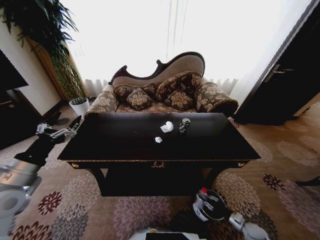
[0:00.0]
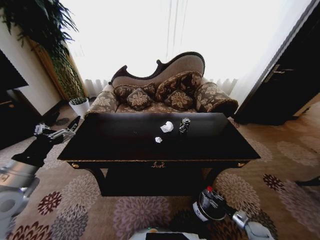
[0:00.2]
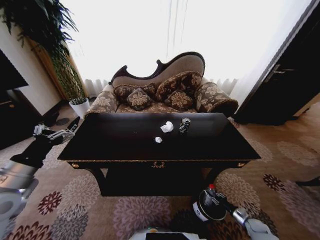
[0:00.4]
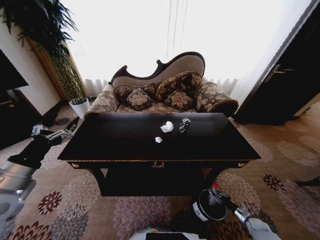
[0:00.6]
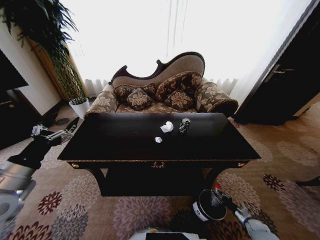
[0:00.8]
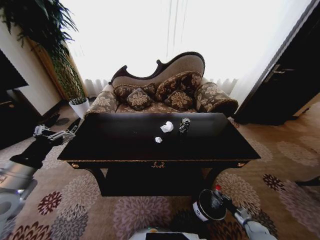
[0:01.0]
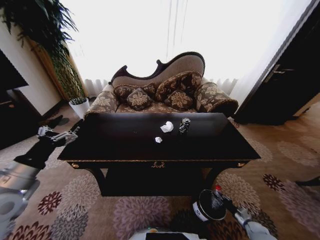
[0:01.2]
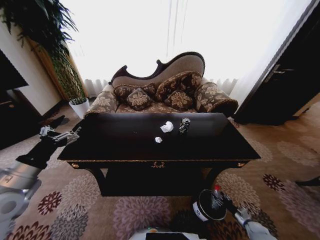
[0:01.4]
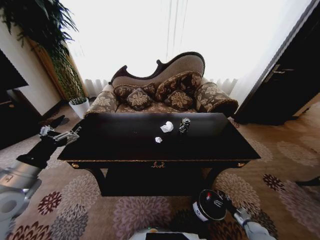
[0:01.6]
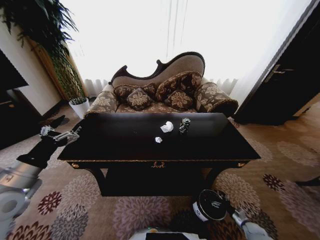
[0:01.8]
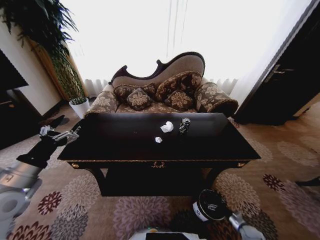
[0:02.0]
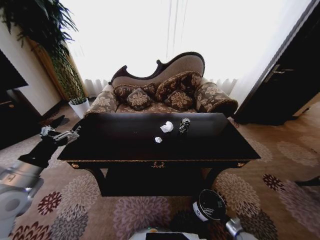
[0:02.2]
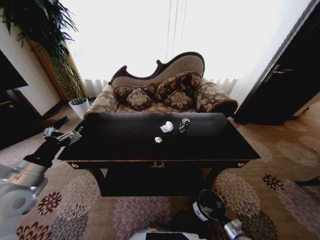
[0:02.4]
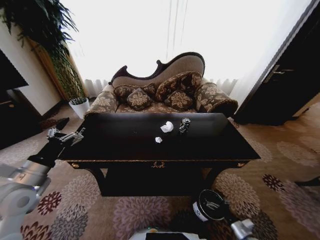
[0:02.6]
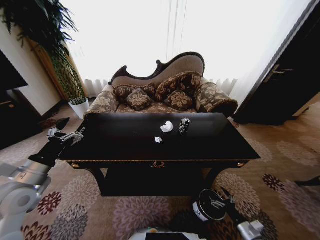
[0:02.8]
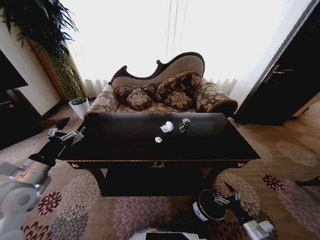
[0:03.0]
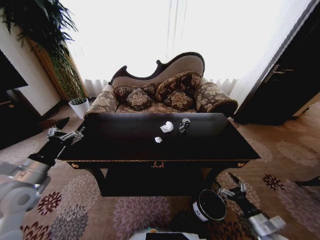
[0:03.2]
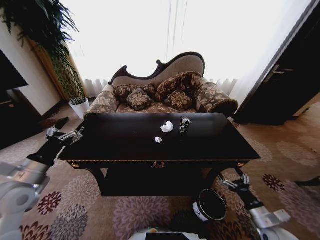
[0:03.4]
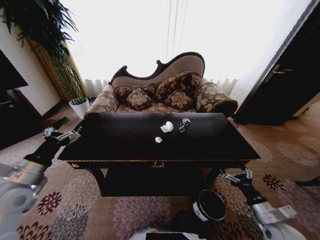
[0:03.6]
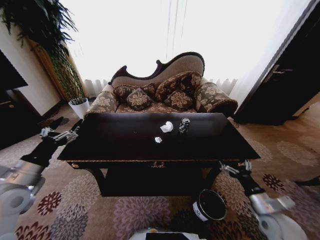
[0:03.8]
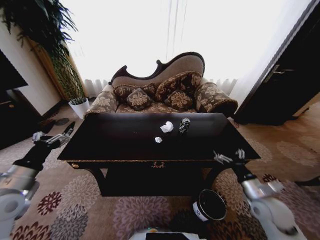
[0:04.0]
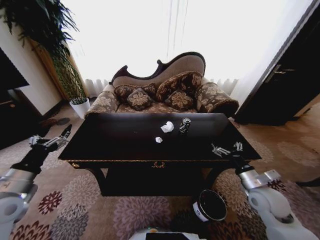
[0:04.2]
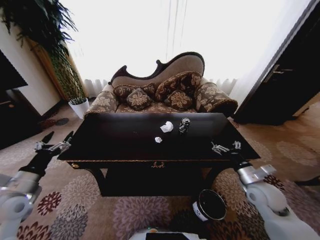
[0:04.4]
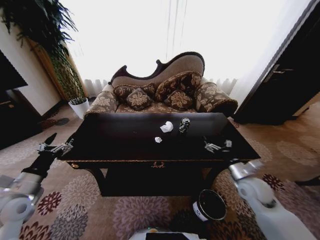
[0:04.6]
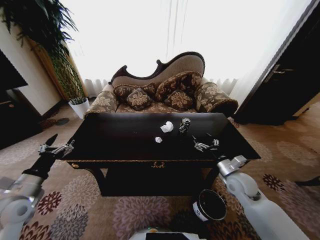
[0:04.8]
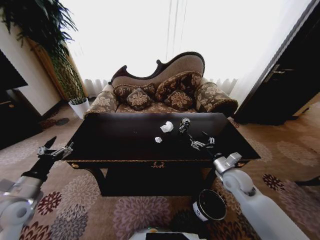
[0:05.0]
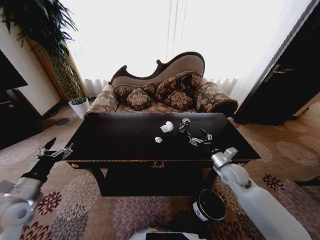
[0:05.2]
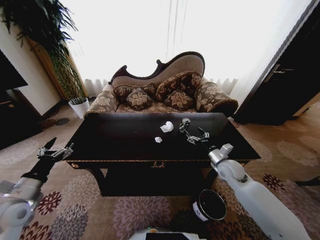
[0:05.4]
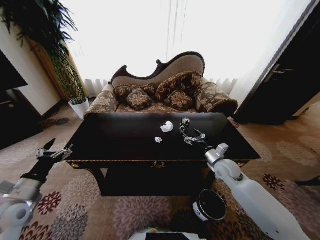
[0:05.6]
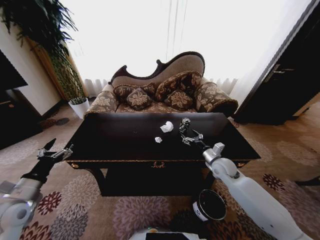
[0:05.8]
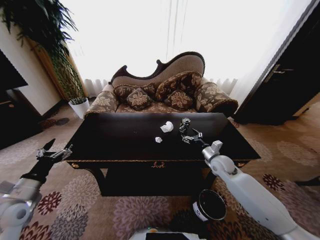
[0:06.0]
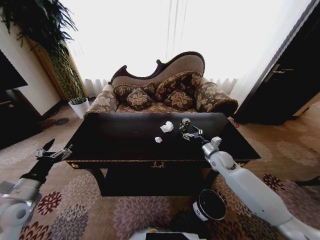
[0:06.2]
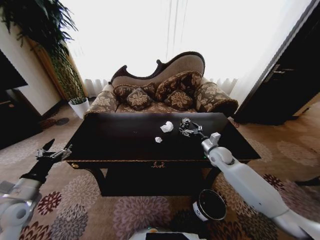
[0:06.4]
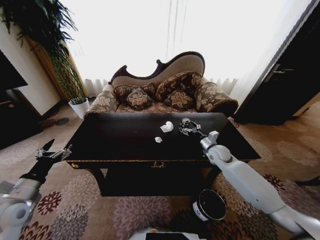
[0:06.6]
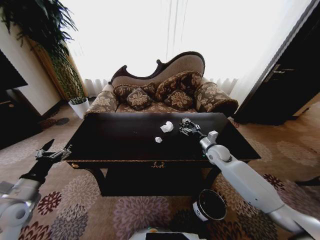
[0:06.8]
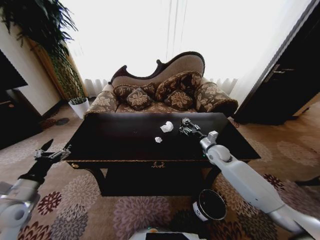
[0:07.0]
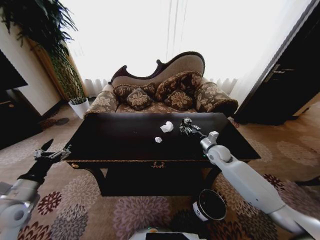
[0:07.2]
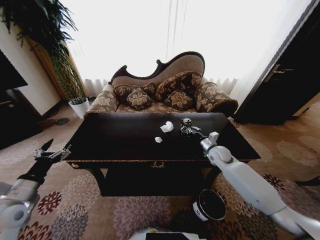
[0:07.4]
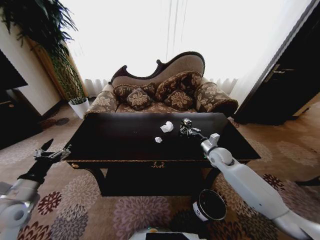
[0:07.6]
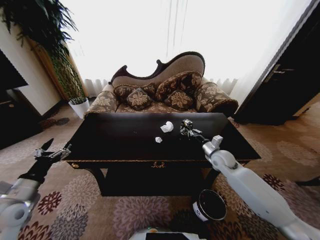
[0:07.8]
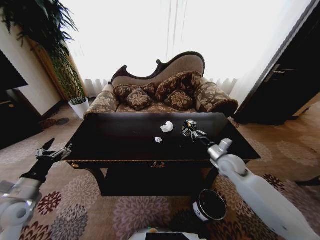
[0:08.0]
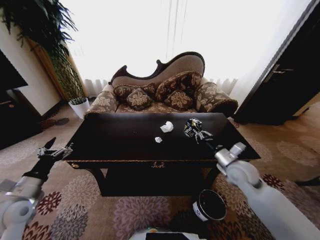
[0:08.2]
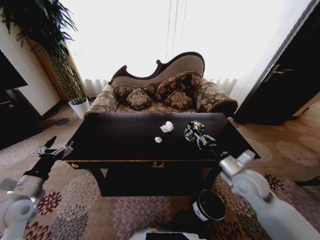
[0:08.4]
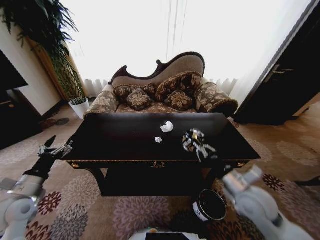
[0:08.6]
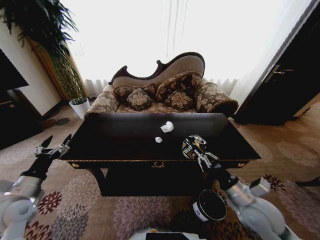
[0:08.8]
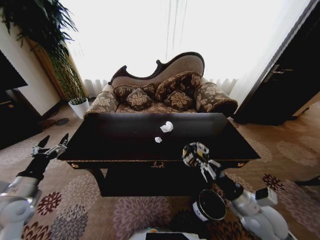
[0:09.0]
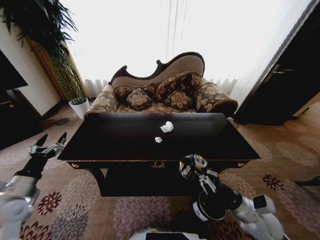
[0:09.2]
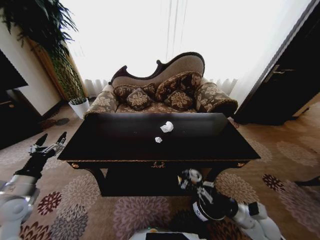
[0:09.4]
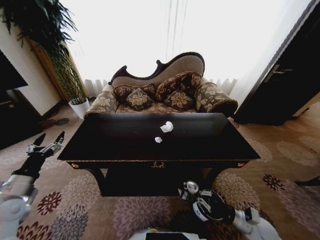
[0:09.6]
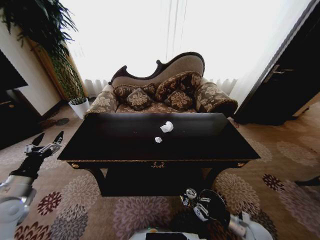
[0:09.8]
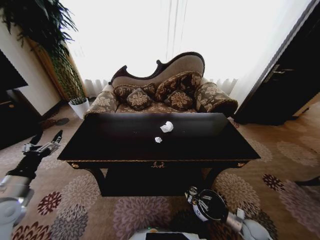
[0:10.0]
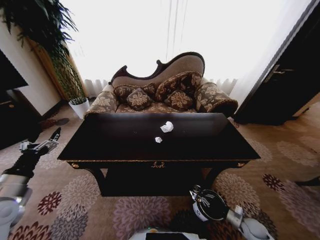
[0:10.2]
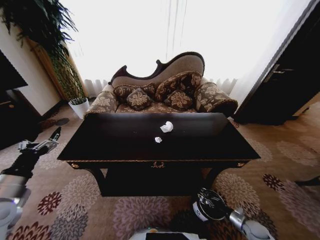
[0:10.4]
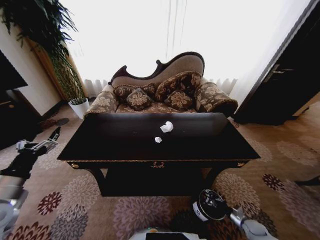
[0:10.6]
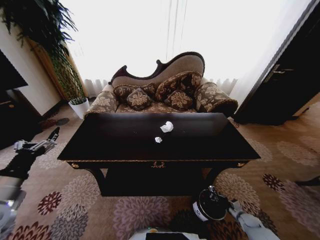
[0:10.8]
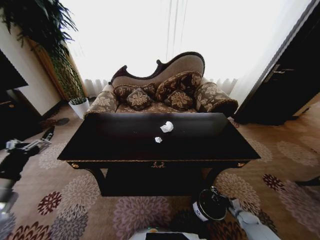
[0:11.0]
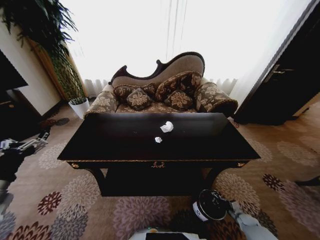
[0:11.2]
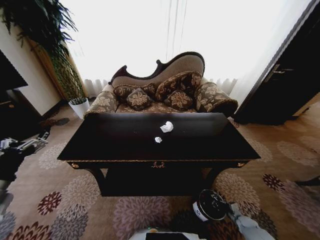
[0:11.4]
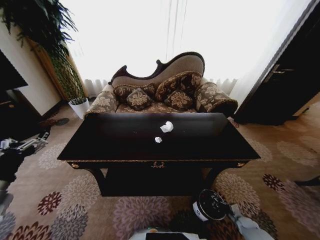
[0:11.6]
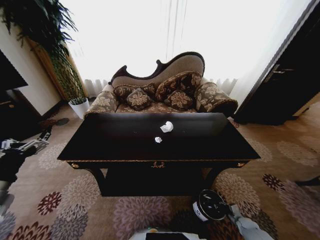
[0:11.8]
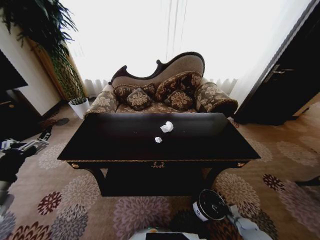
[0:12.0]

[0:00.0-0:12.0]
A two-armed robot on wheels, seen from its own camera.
Task of the whole recording: Move to the front of the table and place the trash on the table into the trash bin.
0:00.0 to 0:01.6: The right gripper shifts by roughly 5 cm, and opens up.
0:01.6 to 0:03.0: The right gripper goes some 25 cm upward, to the left and backward.
0:03.0 to 0:04.4: The left gripper ends up approximately 5 cm from where it was. The right gripper goes approximately 25 cm upward and forward.
0:04.4 to 0:06.0: The right gripper moves forward and to the left, roughly 15 cm.
0:06.0 to 0:07.6: The right gripper closes.
0:07.6 to 0:09.0: The right gripper heads backward, covering approximately 25 cm.
0:09.0 to 0:10.4: The right gripper shifts approximately 35 cm downward and to the right.
0:10.4 to 0:12.0: The right gripper moves downward, about 5 cm, and opens up.

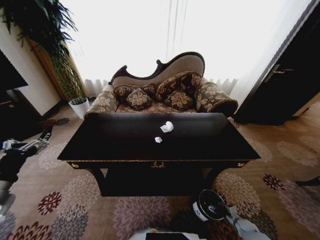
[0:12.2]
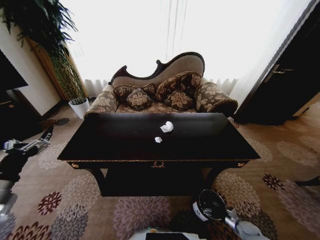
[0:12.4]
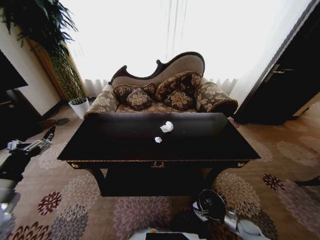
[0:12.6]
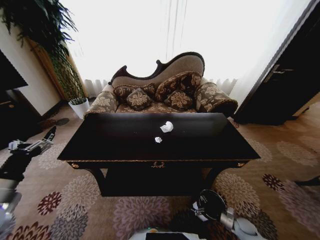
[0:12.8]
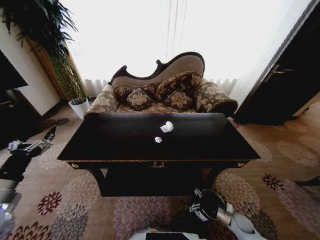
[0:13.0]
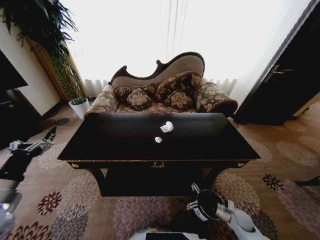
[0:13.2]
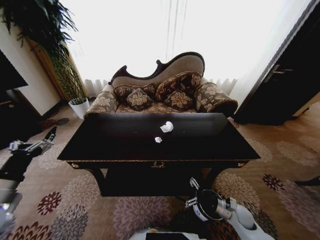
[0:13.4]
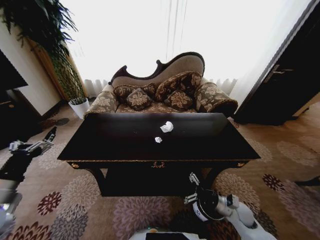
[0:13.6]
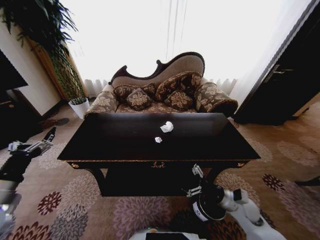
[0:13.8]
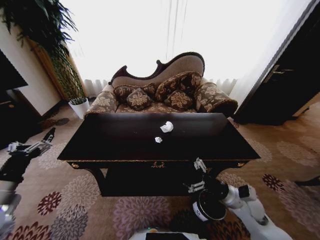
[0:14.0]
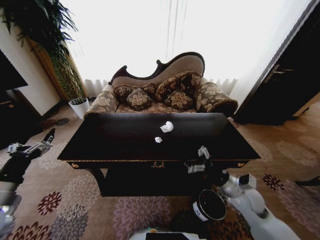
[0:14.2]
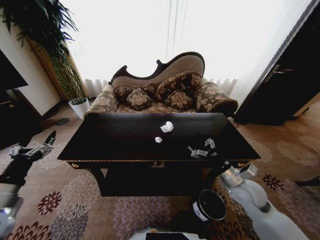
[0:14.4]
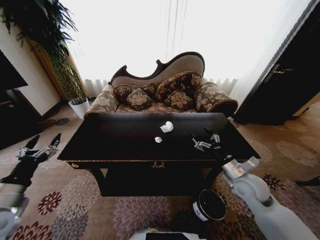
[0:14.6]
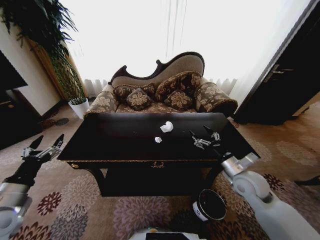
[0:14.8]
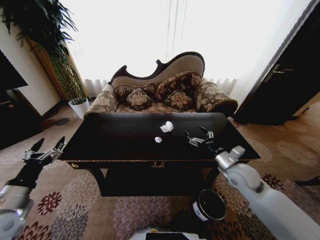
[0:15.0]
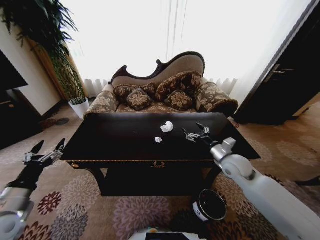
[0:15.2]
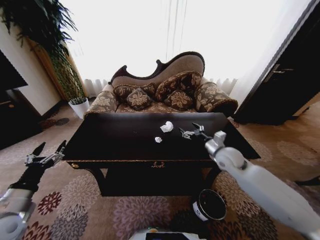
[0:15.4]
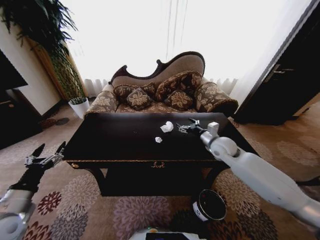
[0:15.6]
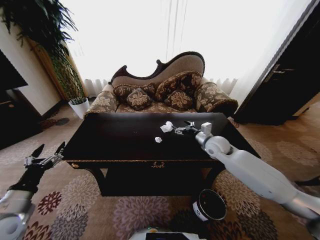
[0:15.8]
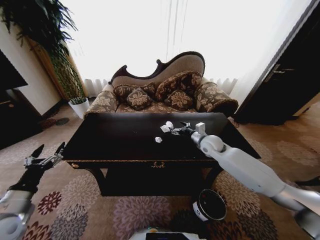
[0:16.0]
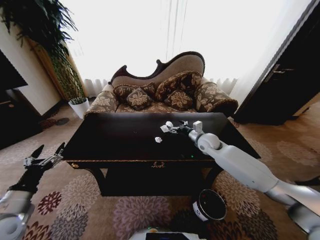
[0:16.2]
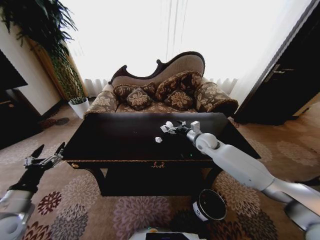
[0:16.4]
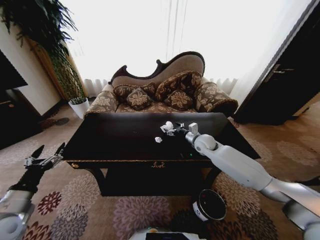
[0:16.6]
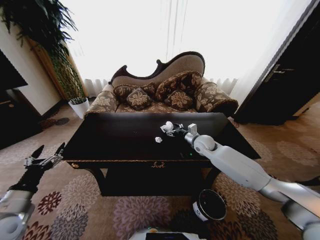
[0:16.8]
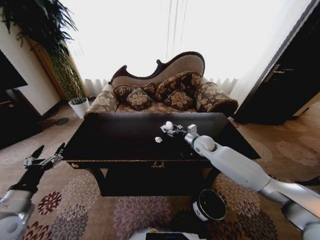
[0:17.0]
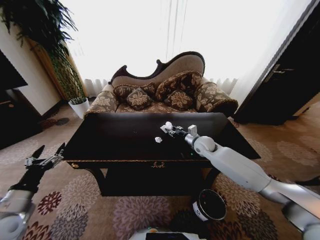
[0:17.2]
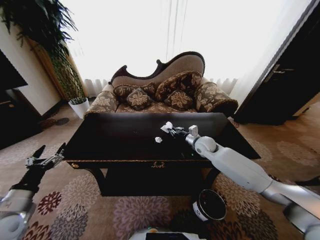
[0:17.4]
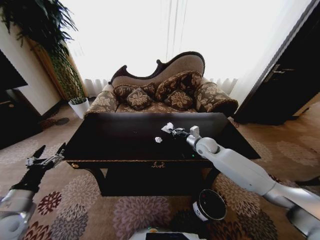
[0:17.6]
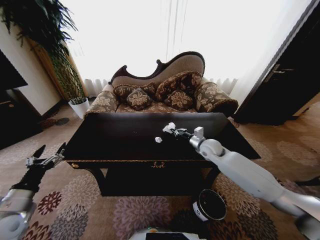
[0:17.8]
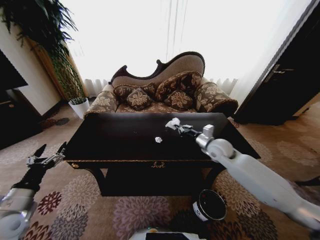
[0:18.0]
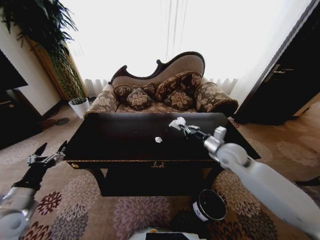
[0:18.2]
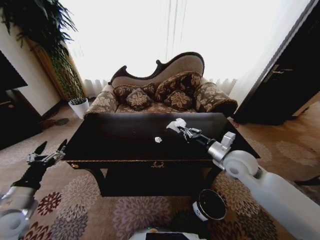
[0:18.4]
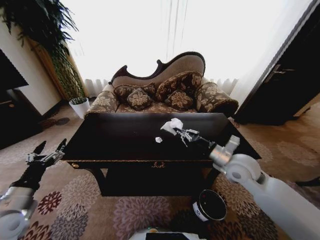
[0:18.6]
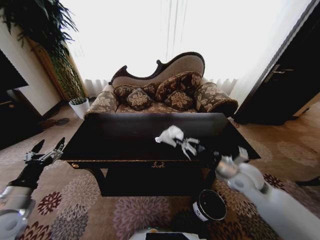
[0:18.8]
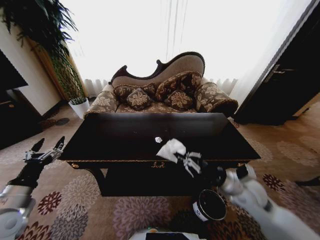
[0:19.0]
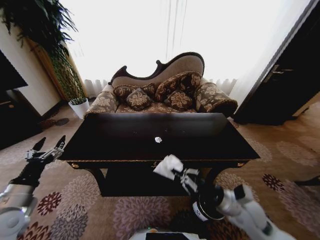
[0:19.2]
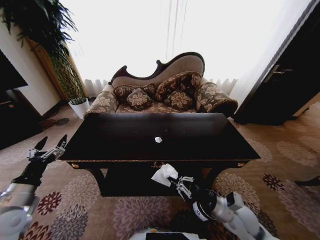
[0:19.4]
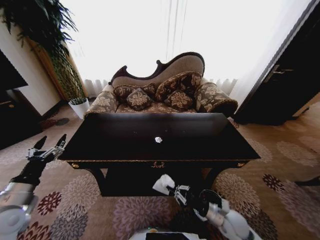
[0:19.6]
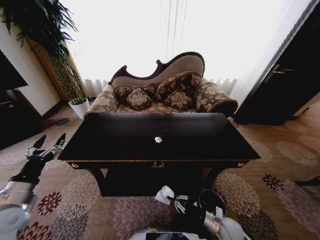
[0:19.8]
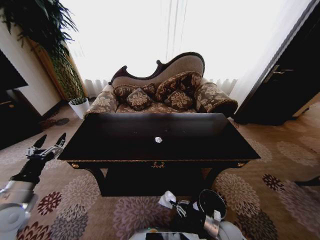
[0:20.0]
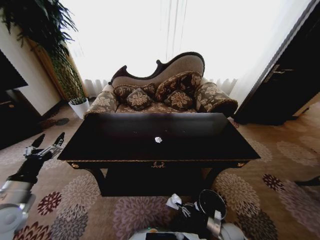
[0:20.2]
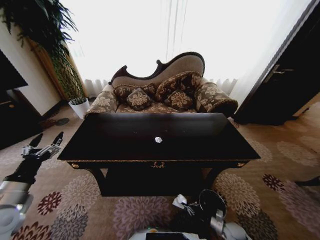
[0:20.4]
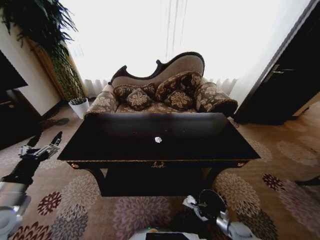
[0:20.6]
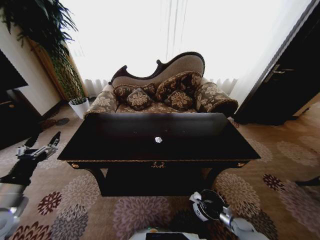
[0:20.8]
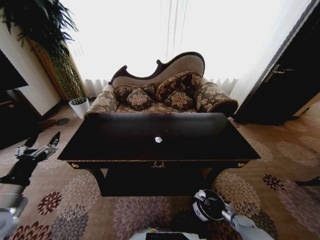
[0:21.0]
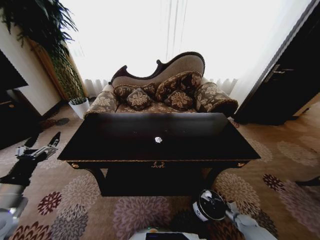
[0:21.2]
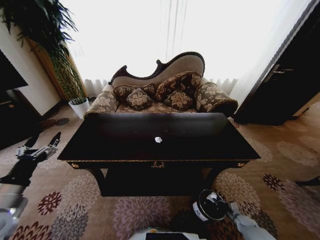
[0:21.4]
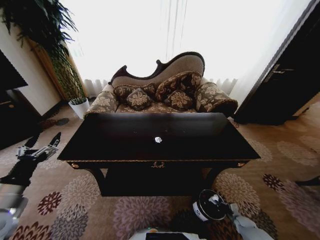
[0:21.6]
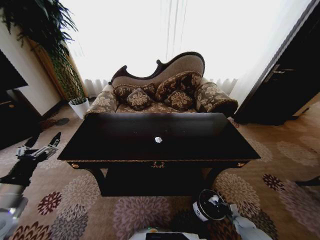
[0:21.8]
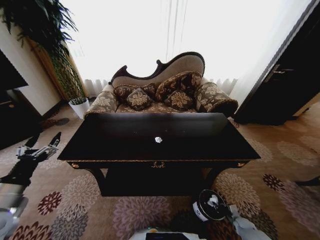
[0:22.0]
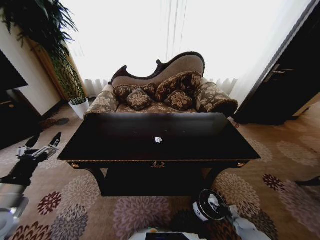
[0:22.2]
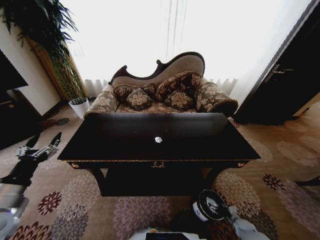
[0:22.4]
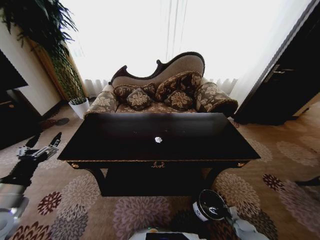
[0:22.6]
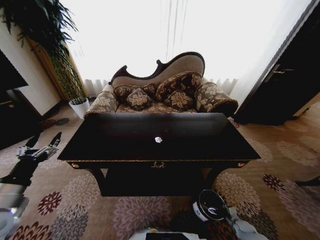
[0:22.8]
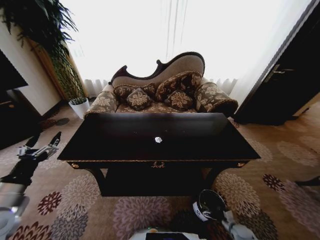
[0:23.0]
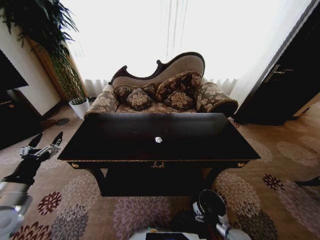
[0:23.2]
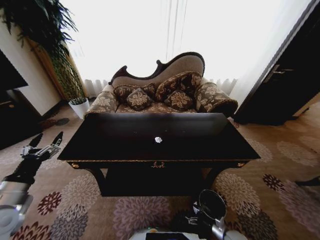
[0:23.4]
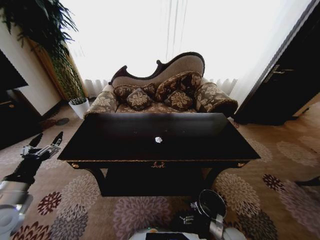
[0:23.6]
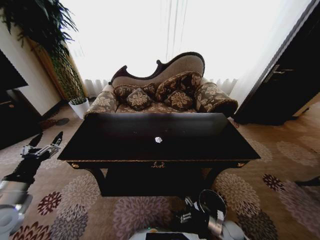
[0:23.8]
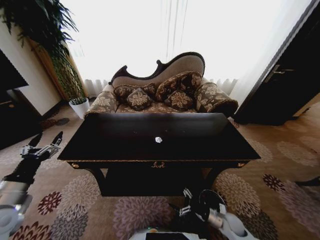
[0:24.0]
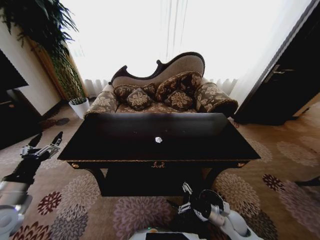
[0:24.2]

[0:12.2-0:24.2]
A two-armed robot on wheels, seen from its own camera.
Task of the whole recording: Move to the front of the table and place the trash on the table into the trash bin.
0:12.2 to 0:13.8: The right gripper shifts some 30 cm upward and to the left, and opens its fingers.
0:13.8 to 0:15.2: The right gripper heads upward and forward, covering some 15 cm.
0:15.2 to 0:16.6: The right gripper moves forward and to the left, about 15 cm.
0:16.6 to 0:18.2: The right gripper is displaced backward and upward by roughly 10 cm, and closes up.
0:18.2 to 0:19.8: The right gripper heads downward and backward, covering roughly 35 cm.
0:19.8 to 0:21.2: The right gripper is displaced to the right and downward by roughly 30 cm.
0:21.2 to 0:22.6: The right gripper opens its fingers.
0:22.6 to 0:24.2: The right gripper goes roughly 30 cm upward and to the left.
